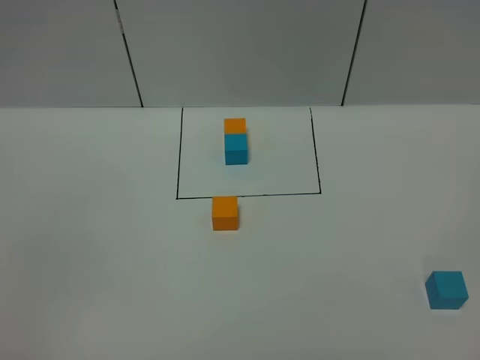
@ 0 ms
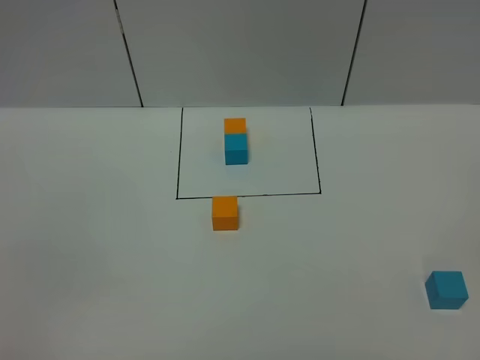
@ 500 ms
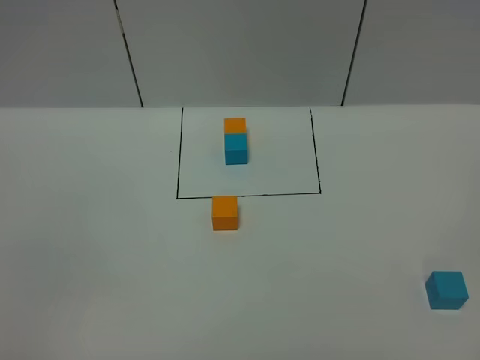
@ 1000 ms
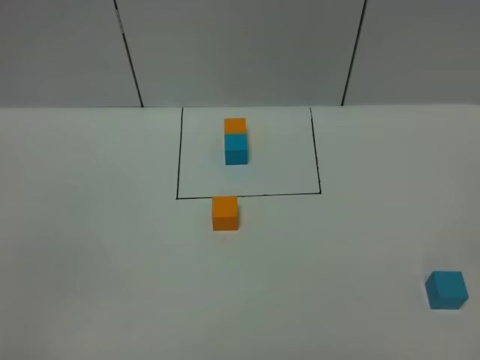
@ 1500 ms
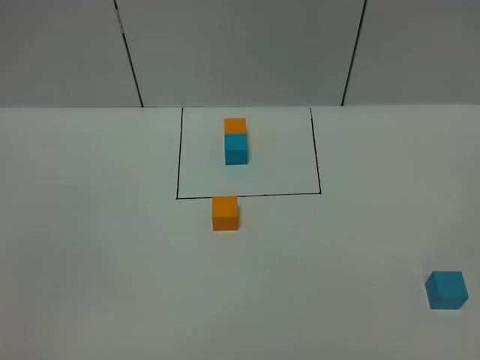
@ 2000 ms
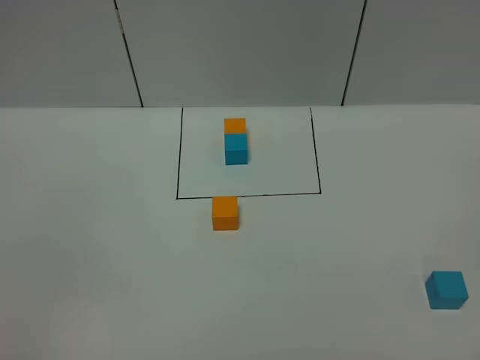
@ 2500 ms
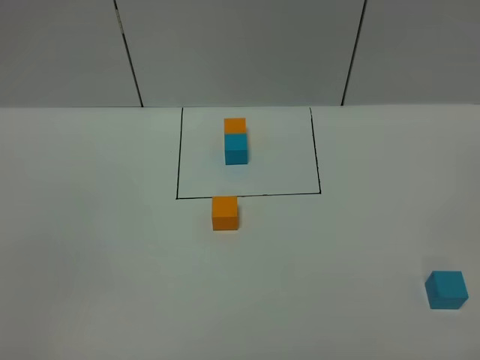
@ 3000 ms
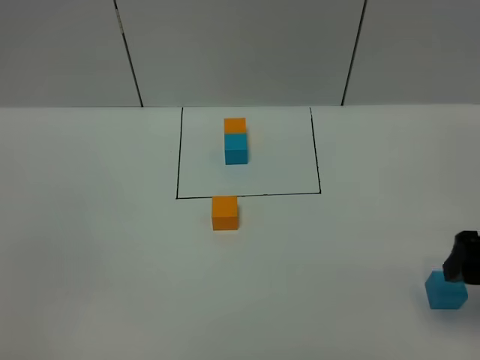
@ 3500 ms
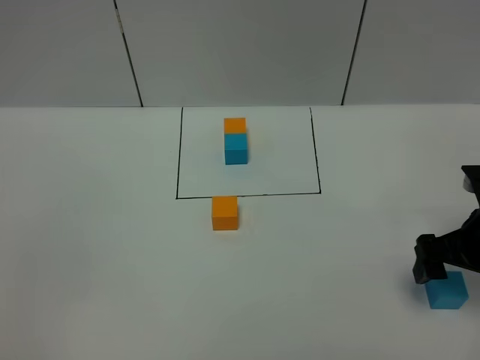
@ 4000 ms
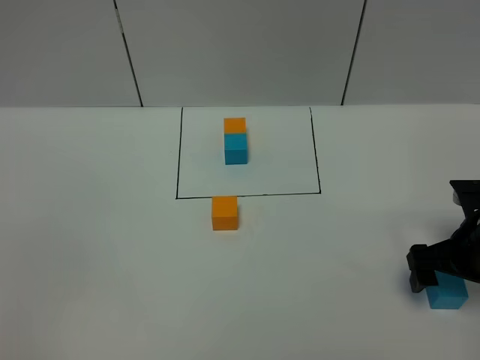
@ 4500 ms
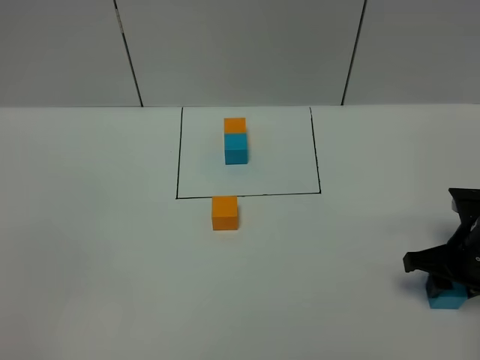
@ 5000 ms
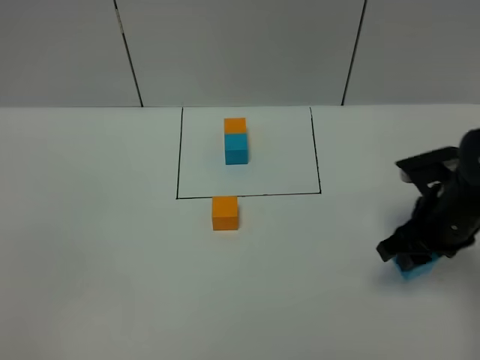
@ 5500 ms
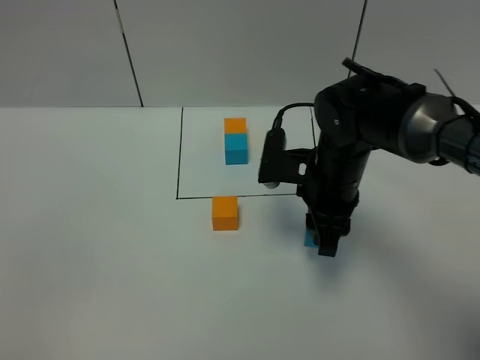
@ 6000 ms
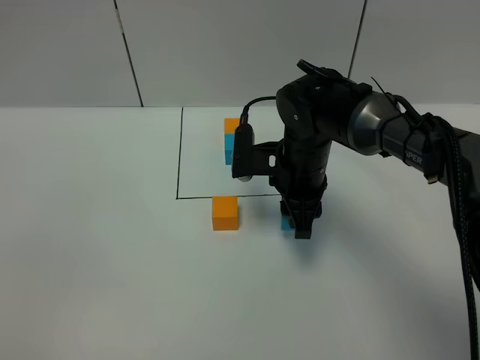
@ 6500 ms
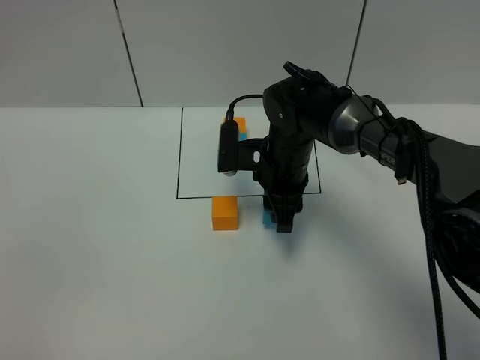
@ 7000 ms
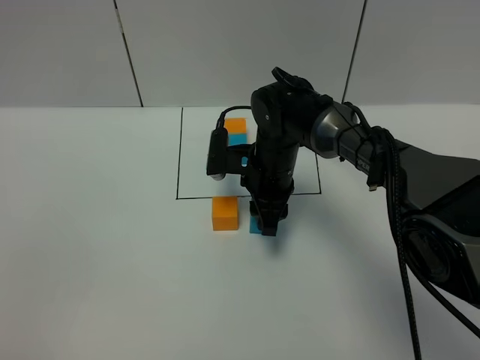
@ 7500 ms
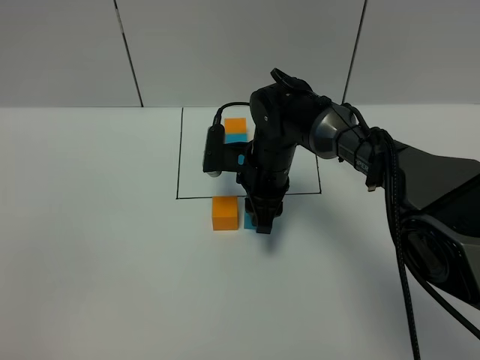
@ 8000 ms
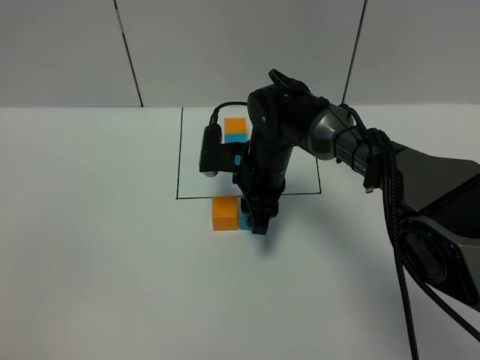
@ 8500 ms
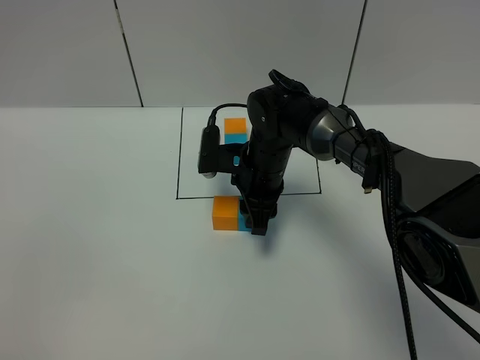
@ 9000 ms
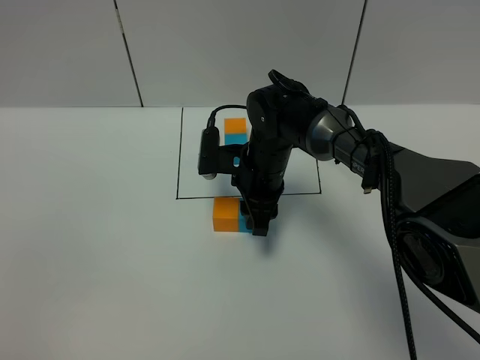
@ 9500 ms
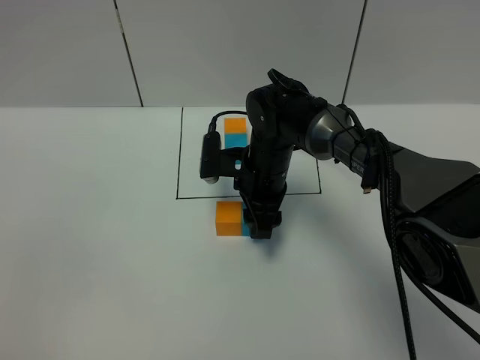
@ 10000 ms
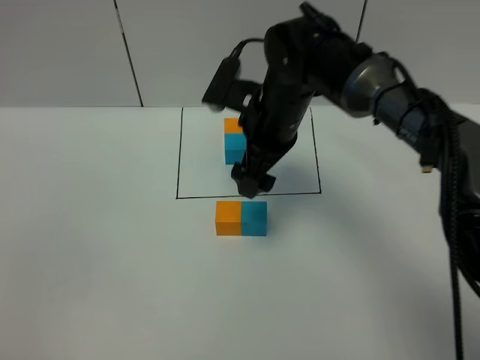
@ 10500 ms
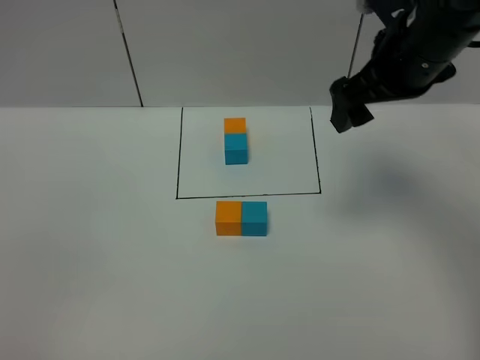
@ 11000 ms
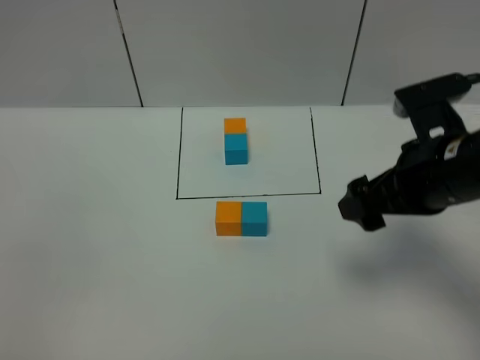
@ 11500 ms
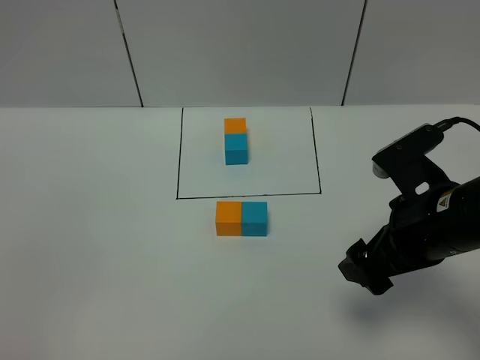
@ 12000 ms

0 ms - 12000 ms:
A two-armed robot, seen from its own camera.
Task of the whole recording: According to the building block template in front, assemble the scattered blocks together.
Step, 0 ms - 10000 ms: Put the blue cube on the right of the orange cube.
0 ms - 2000 ms: Both grippers stay about where they are.
2000 ms - 4000 ms: The right gripper goes approximately 30 cm forward.
4000 ms - 6000 ms: The right gripper moves to the left and forward, approximately 20 cm, and closes.
6000 ms - 8000 ms: The right gripper is displaced to the left, forward and downward by some 10 cm.
8000 ms - 10000 ms: The right gripper opens up.
10000 ms - 12000 ms: The right gripper goes approximately 25 cm backward, to the right and upward, and opens up.

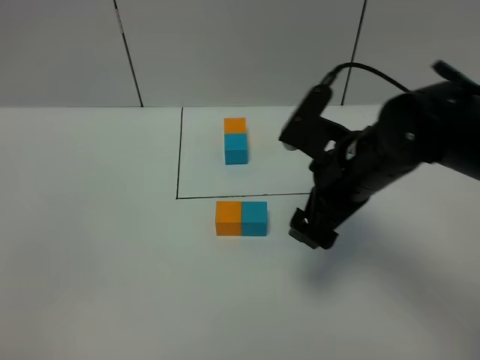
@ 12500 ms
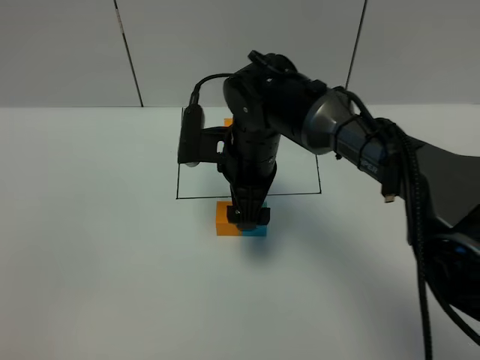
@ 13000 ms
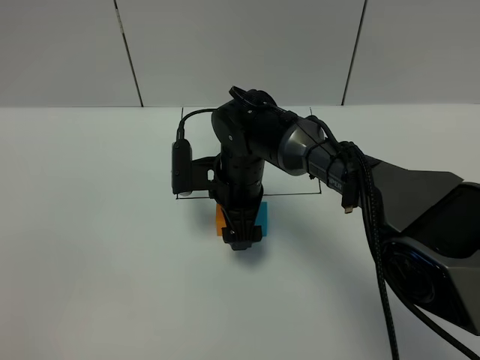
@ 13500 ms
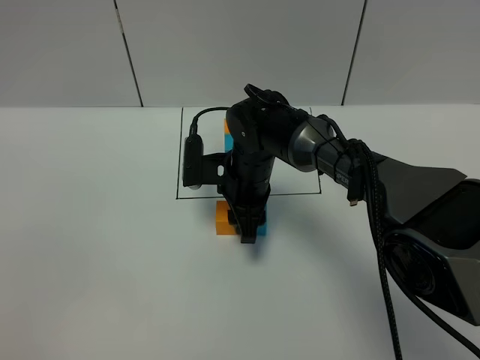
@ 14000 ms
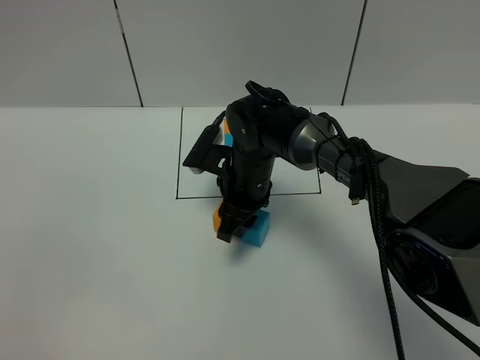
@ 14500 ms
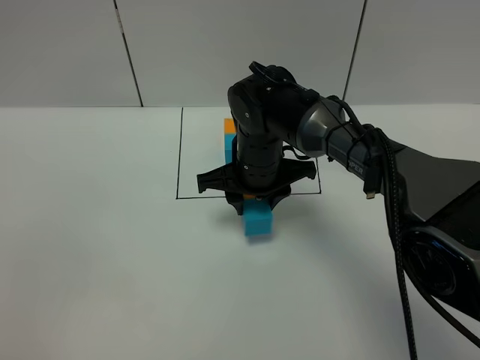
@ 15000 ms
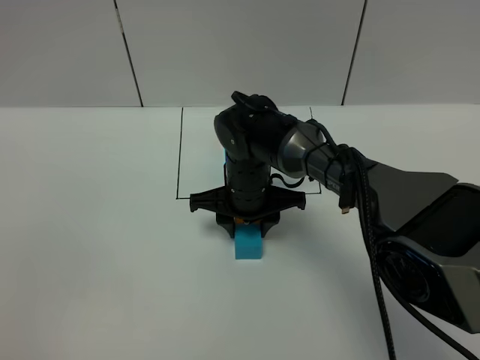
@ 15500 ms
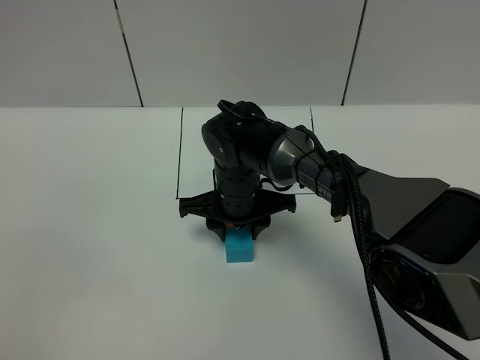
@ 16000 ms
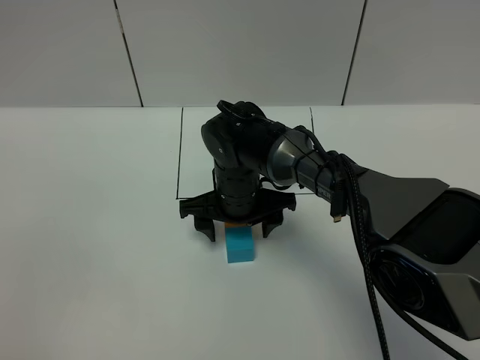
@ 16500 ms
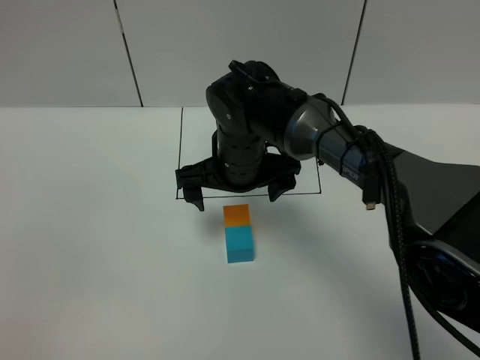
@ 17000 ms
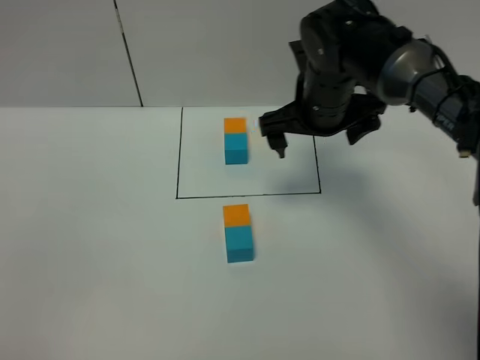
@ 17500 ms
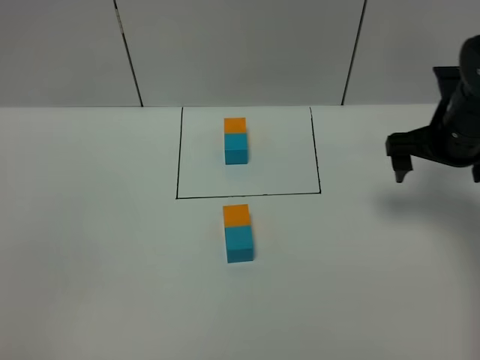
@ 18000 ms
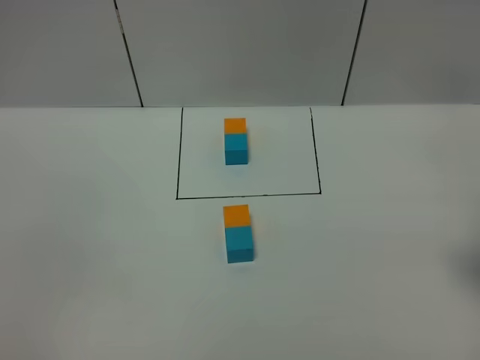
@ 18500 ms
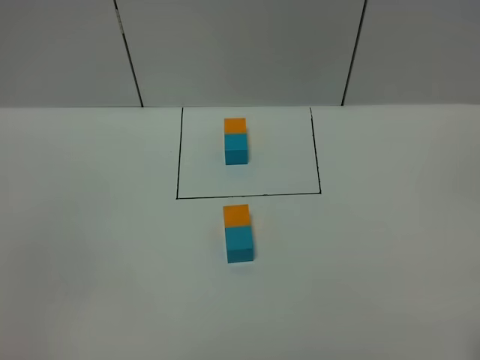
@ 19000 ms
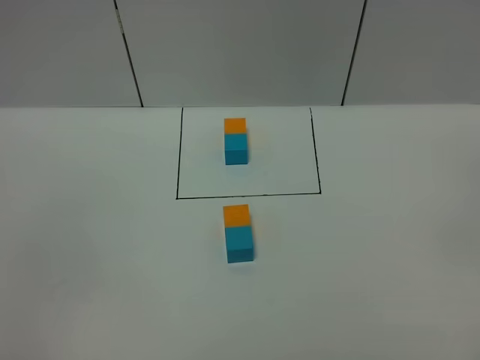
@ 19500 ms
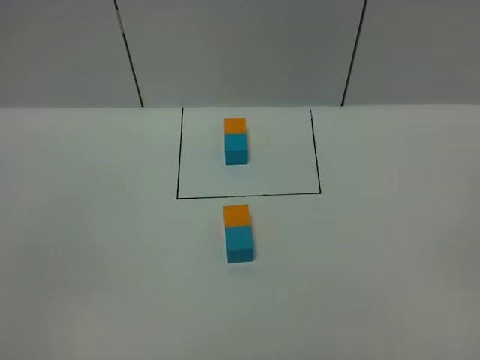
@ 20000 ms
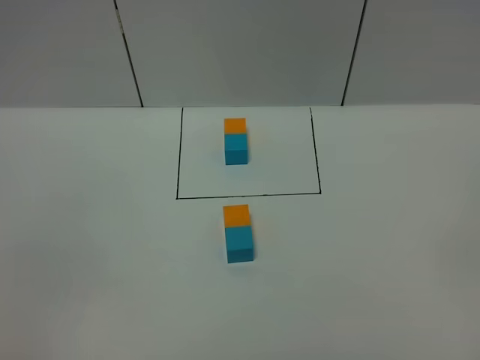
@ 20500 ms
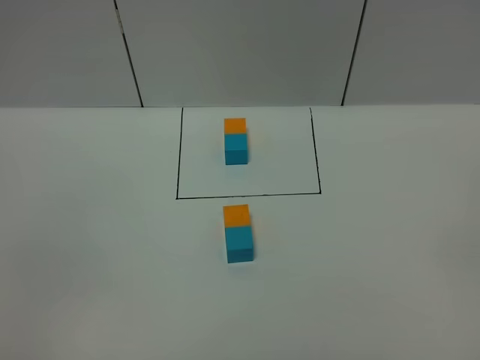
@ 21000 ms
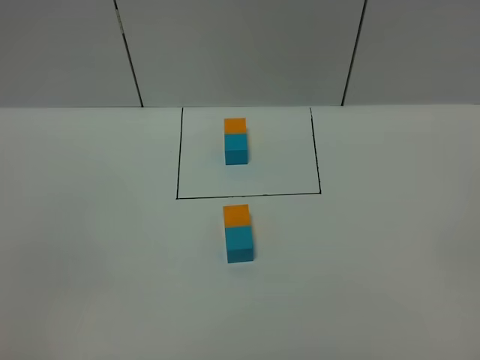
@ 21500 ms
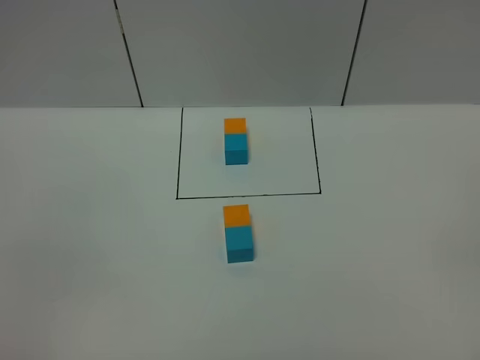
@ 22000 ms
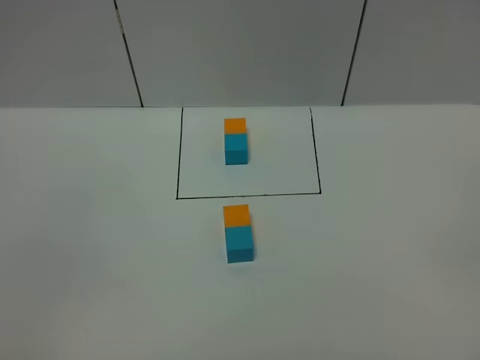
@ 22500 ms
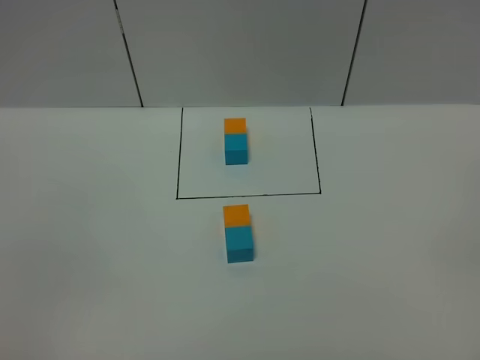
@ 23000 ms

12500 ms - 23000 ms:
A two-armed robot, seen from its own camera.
Task of the whole recording: According to the building block template in front, assemble the scattered blocks together.
Step, 12500 ms - 16500 ms: Adjust the pose of the building blocks.
12500 ms - 14500 ms: The right gripper heads to the left, downward and forward, covering some 15 cm, and closes up.
14500 ms - 16500 ms: The right gripper opens up.
16500 ms - 19000 ms: The right gripper heads to the right, backward and upward, covering some 50 cm.
21000 ms - 23000 ms: The two grippers keep their place.
